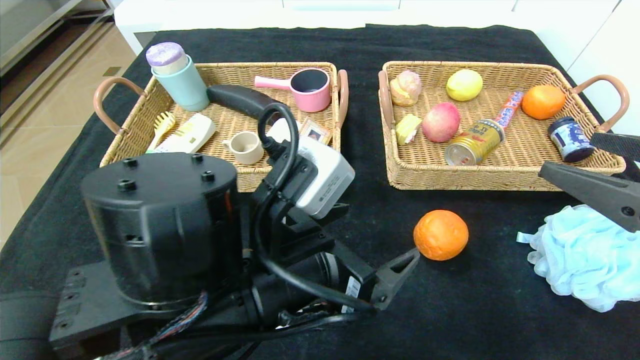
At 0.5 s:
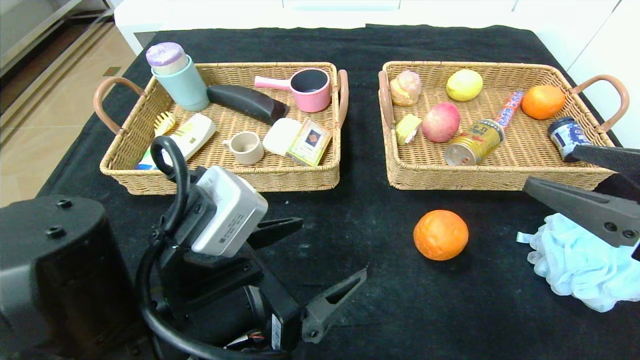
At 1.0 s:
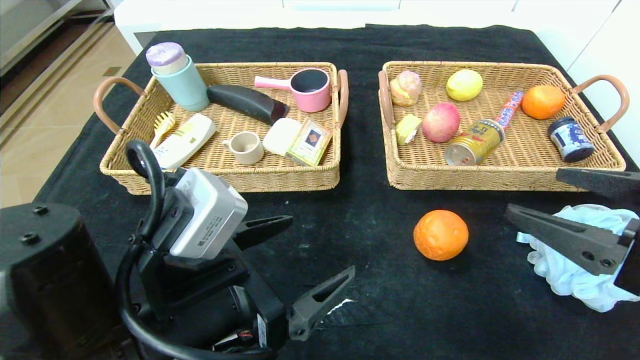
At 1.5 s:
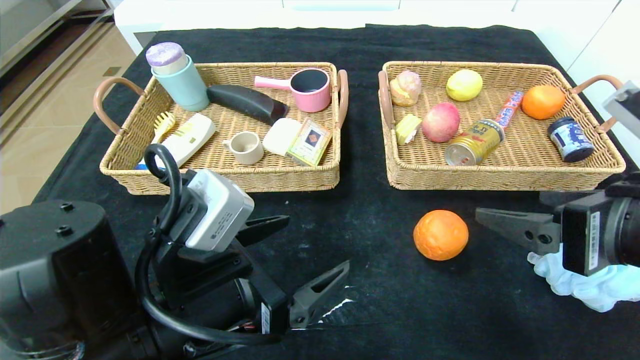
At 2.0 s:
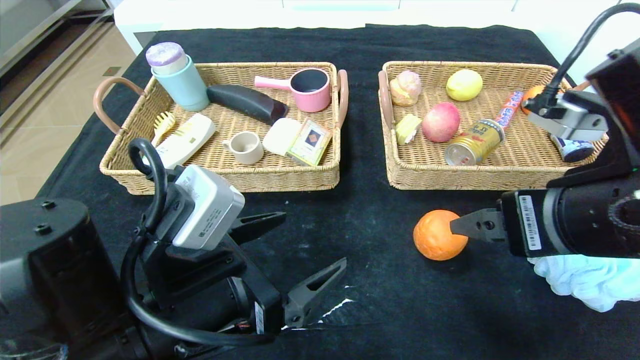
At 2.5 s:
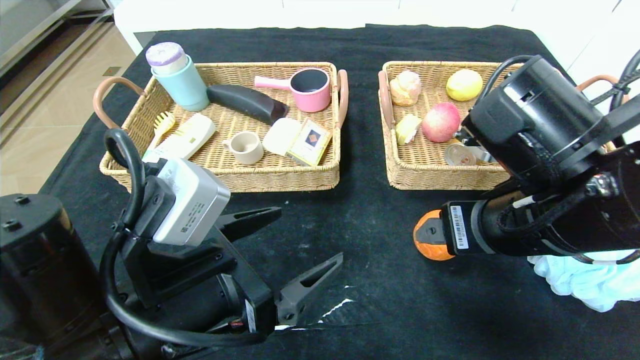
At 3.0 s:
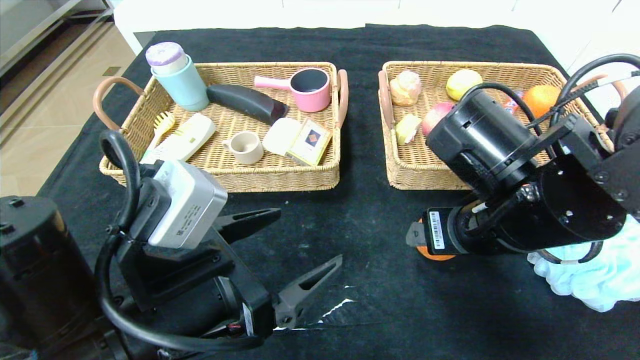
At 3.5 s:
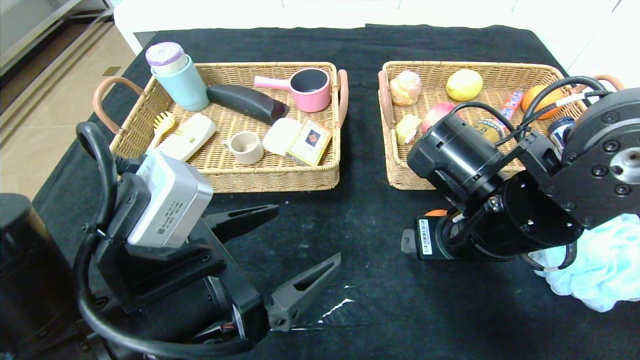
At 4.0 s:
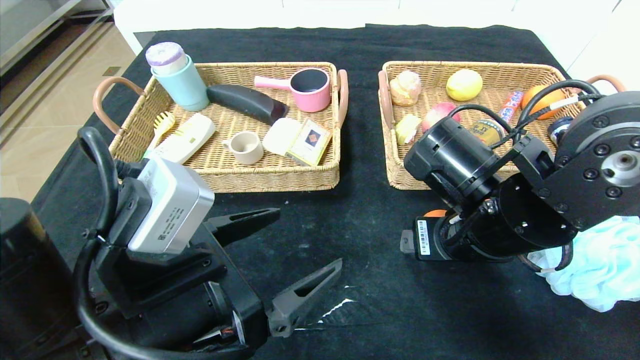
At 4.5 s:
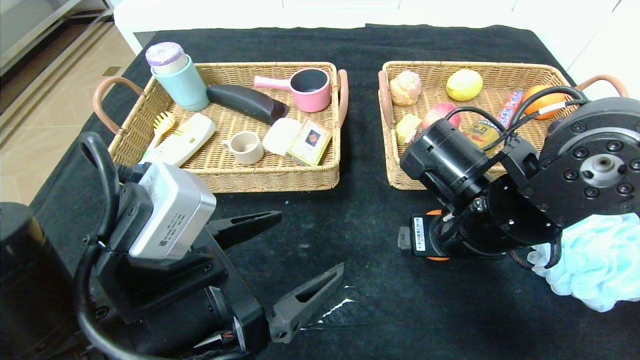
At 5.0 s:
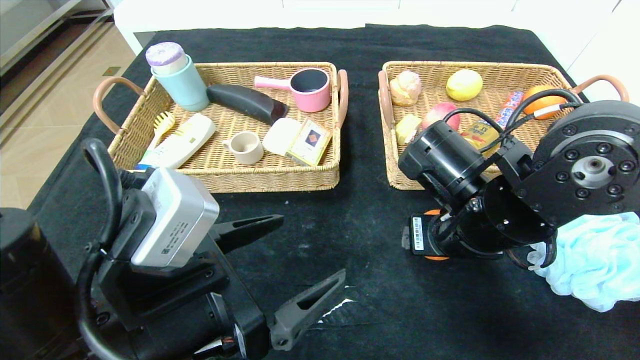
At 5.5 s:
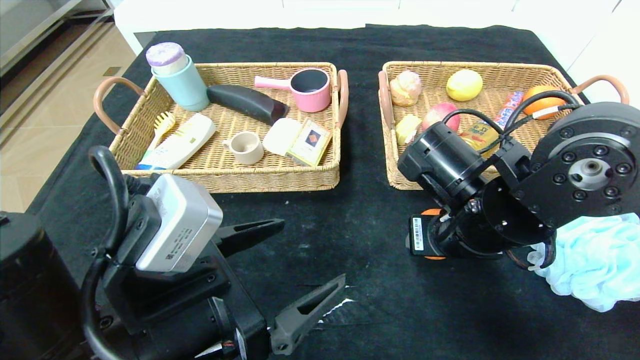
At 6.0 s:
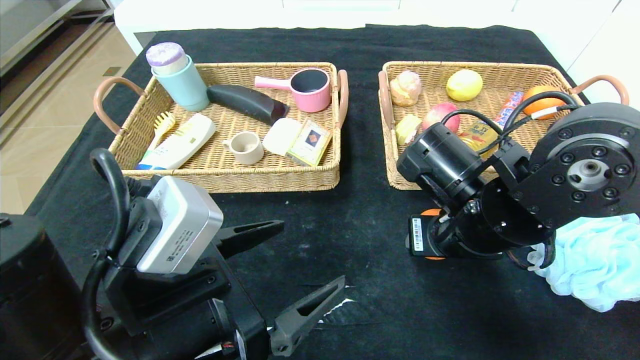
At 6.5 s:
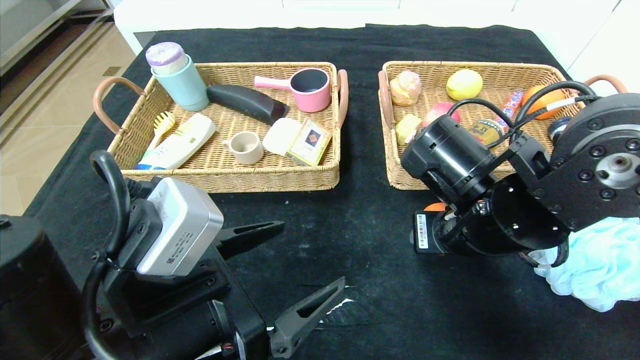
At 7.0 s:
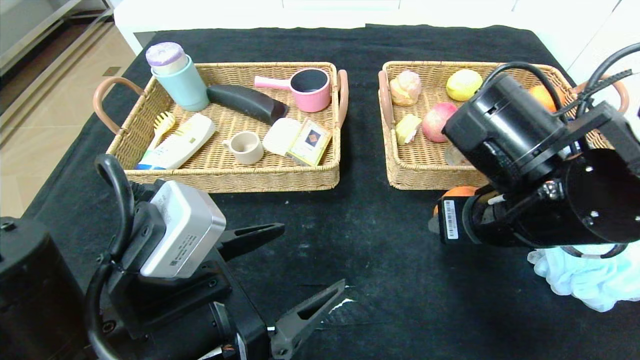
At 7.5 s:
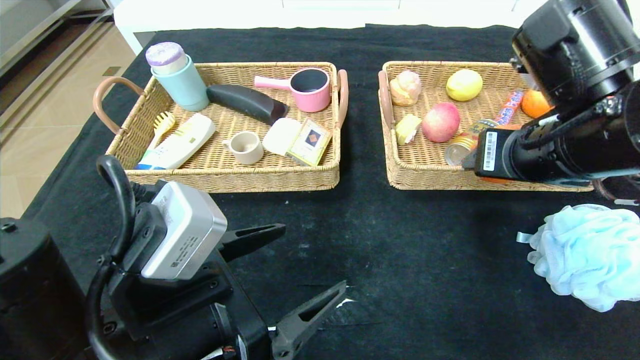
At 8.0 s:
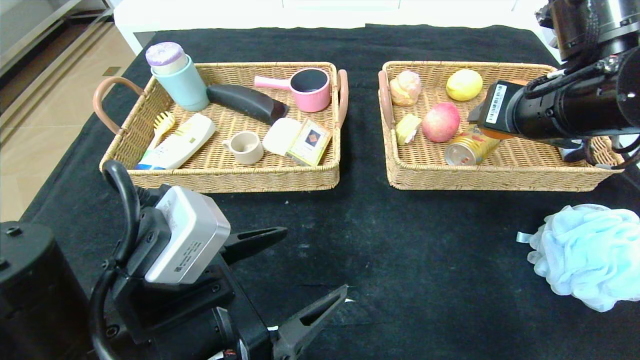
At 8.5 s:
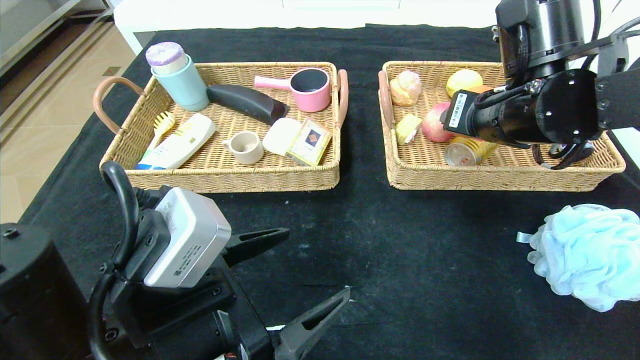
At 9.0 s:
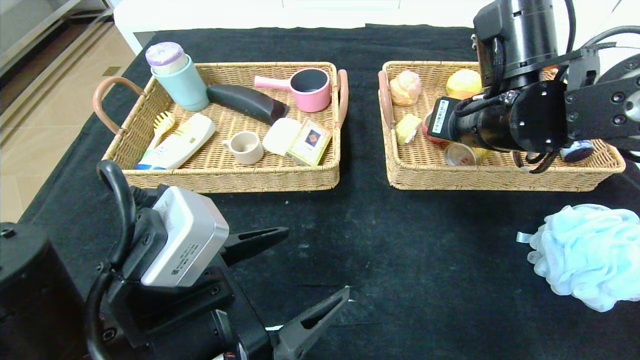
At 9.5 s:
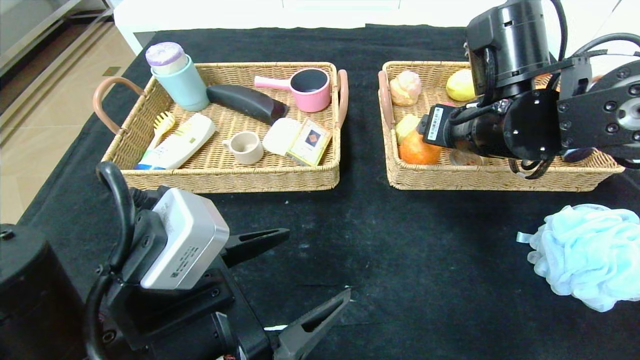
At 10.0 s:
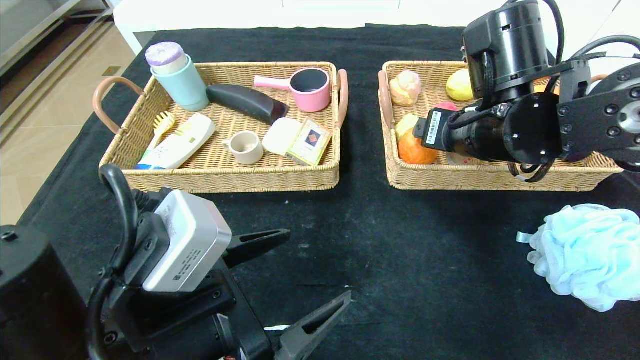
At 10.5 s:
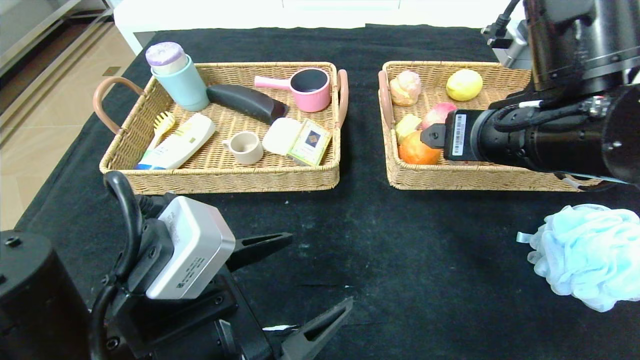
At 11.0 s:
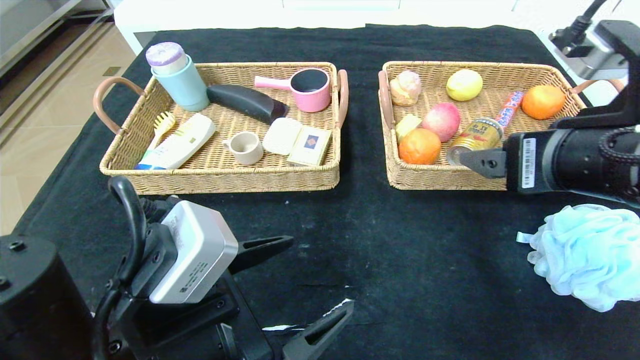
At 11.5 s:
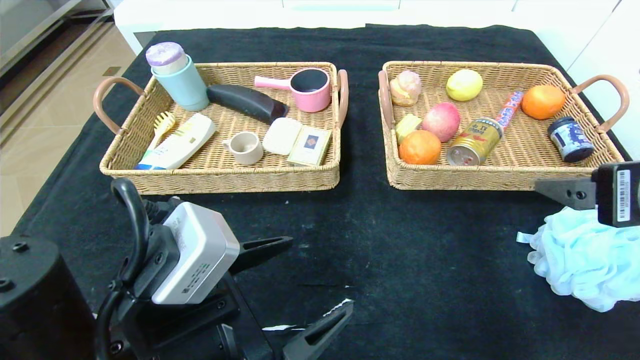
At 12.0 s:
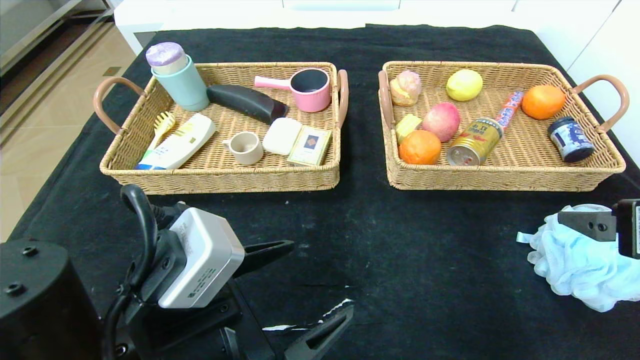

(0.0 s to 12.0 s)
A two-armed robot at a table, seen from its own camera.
Step, 0.0 s - 9.5 s: Grasp the orange and put it in the right basket.
0.0 s - 2.0 s: The two grippers go about 10 cm to the left.
2.0 s - 4.0 s: The right gripper goes roughly 10 cm forward, downward and to the left.
4.0 s - 6.0 s: The right gripper closes its fingers.
6.0 s - 8.0 s: The right gripper is displaced upward and to the right by about 15 cm.
8.0 s - 10.0 s: The right gripper shifts by approximately 5 cm, and opens its fingers.
10.0 s - 12.0 s: The right gripper moves backward and to the right, some 20 cm.

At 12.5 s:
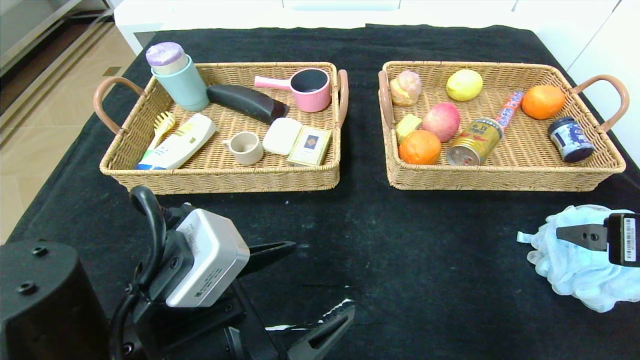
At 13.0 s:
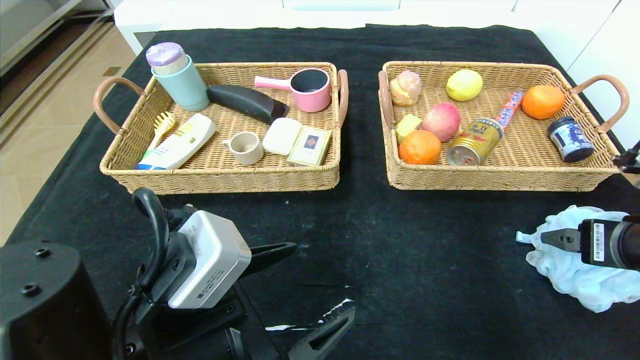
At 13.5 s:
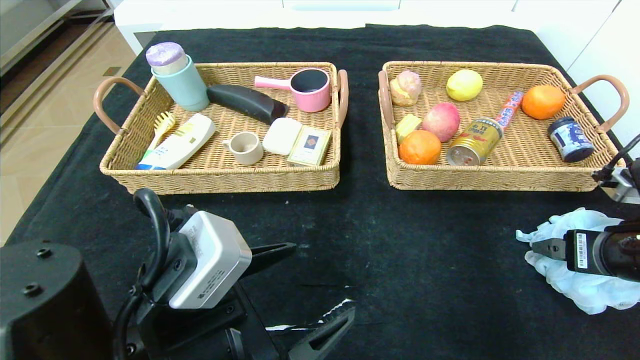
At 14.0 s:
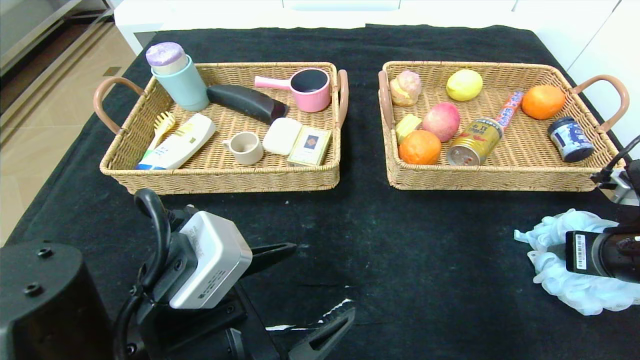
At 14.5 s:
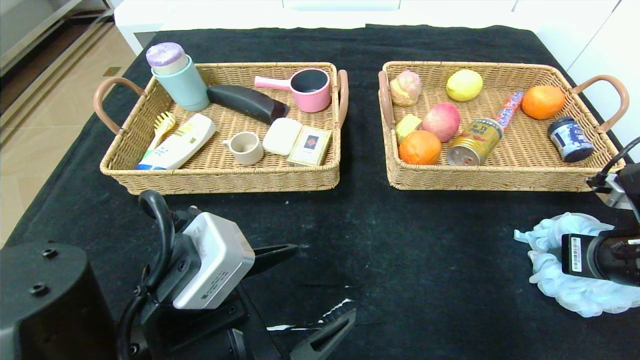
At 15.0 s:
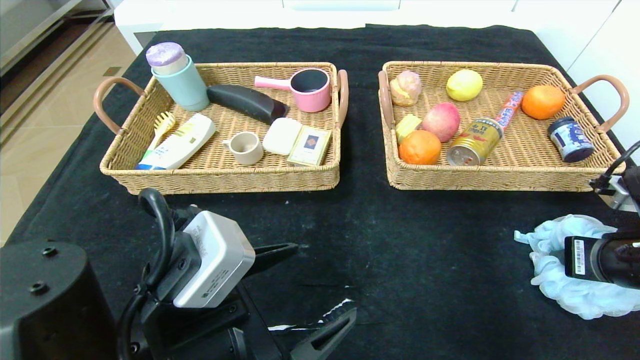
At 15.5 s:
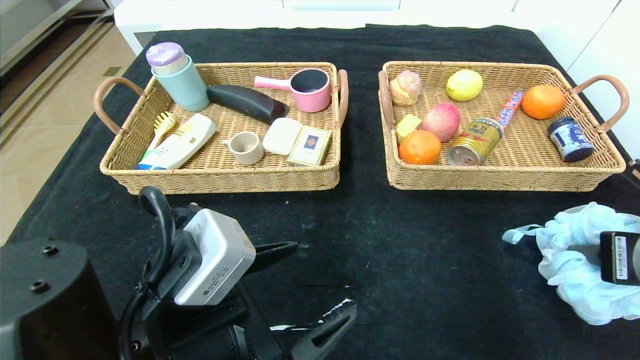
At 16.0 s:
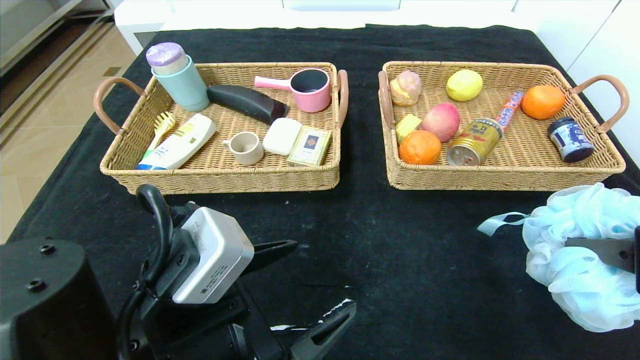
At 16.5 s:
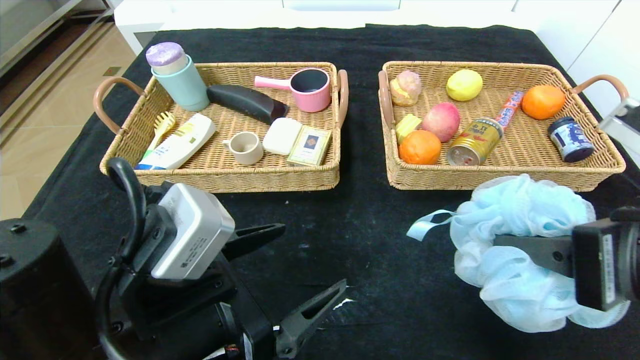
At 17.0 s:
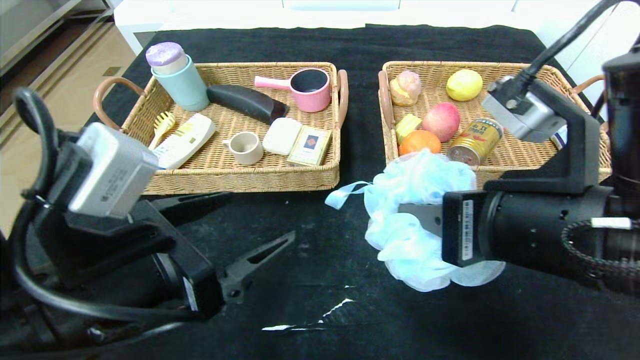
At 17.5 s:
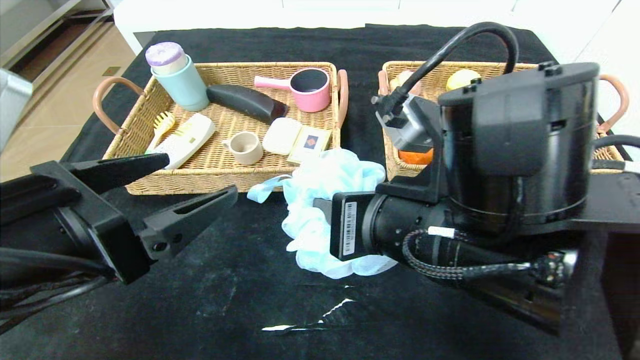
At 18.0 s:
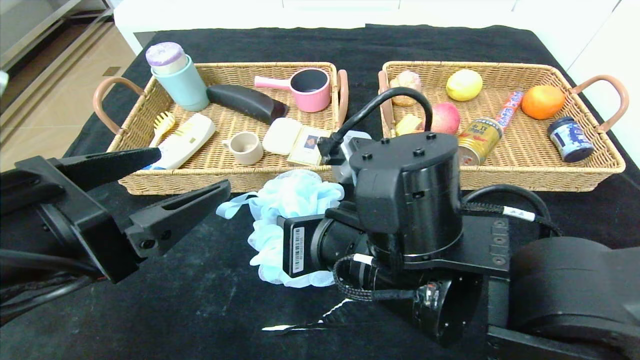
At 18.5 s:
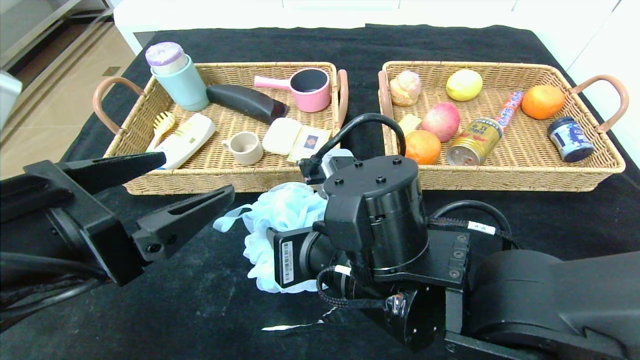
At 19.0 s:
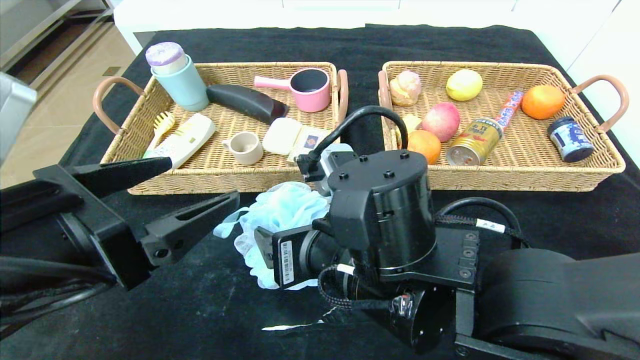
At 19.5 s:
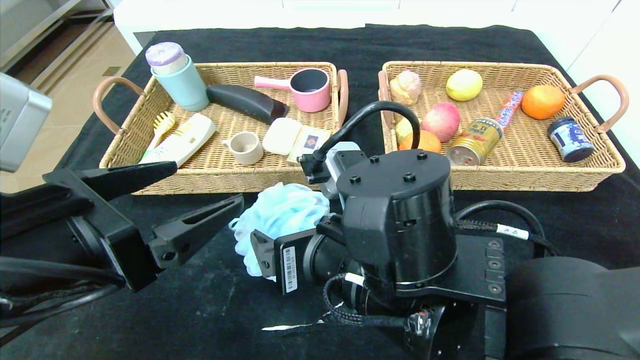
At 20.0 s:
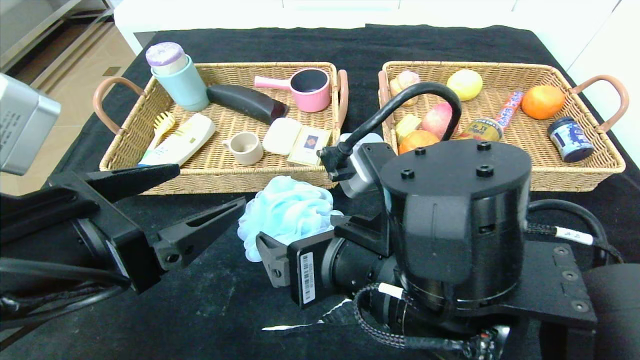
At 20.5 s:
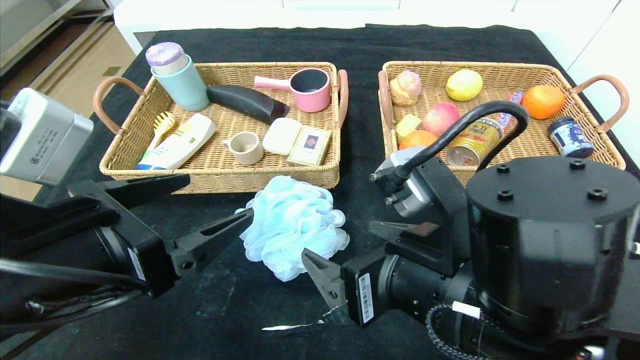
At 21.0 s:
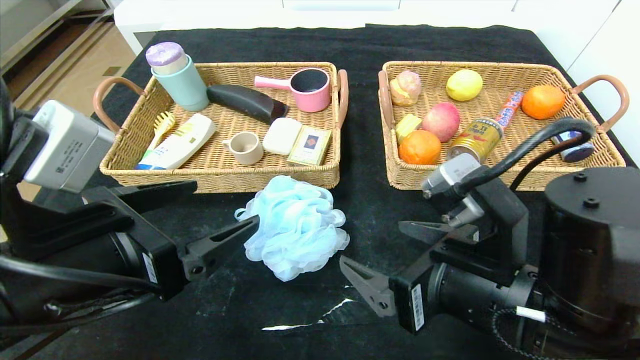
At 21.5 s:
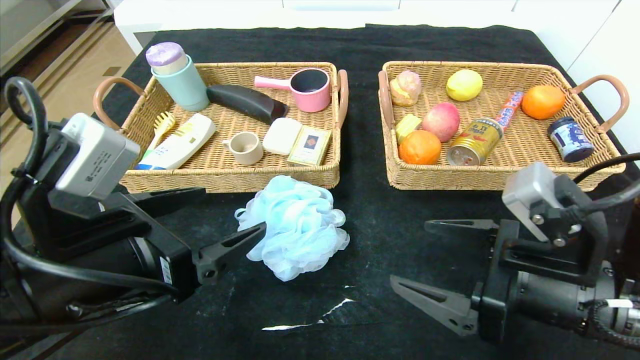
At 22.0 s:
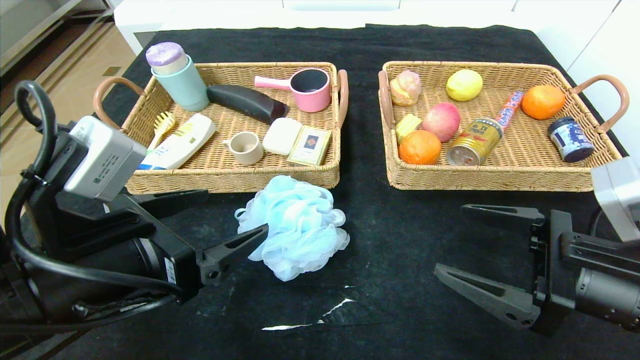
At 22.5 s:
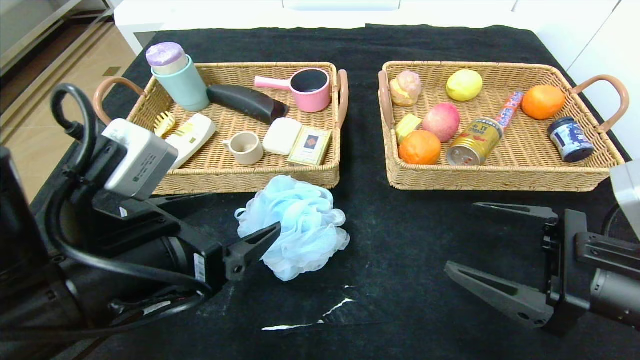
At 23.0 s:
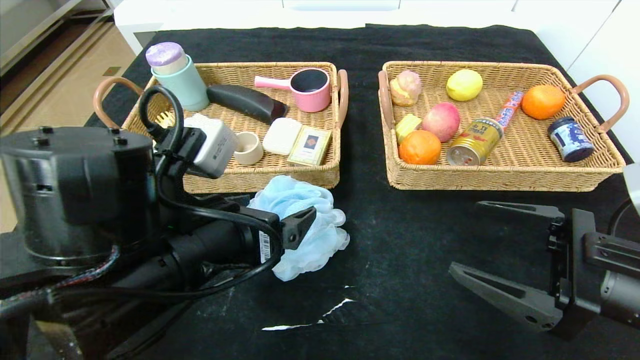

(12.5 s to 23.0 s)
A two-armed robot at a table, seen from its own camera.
Step, 12.5 s - 20.0 s: Place the bath ball in the center of the table.
12.5 s - 14.5 s: The right gripper shifts approximately 5 cm downward, and closes its fingers.
14.5 s - 16.5 s: The right gripper travels to the left, upward and backward by roughly 15 cm.
16.5 s - 19.0 s: The right gripper moves to the left, some 20 cm, and opens its fingers. The left gripper is displaced to the left and upward by approximately 10 cm.
19.0 s - 21.0 s: The right gripper moves to the right, some 10 cm.
21.0 s - 23.0 s: The right gripper goes approximately 10 cm to the right, while the left gripper shifts roughly 5 cm to the right.
